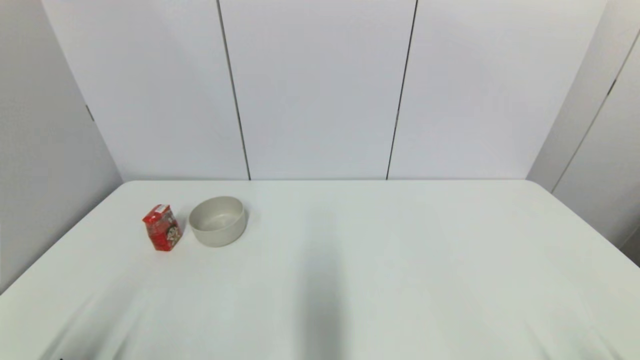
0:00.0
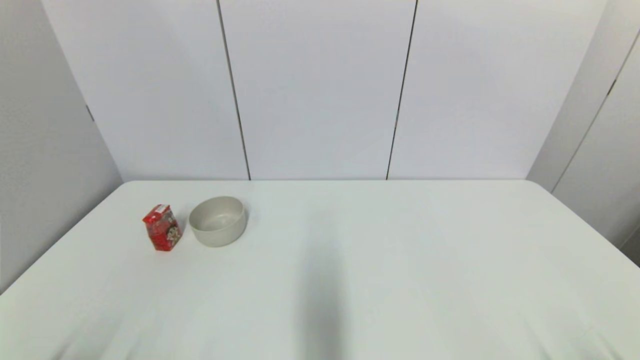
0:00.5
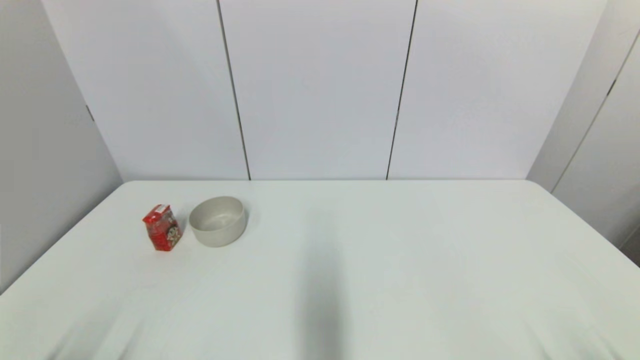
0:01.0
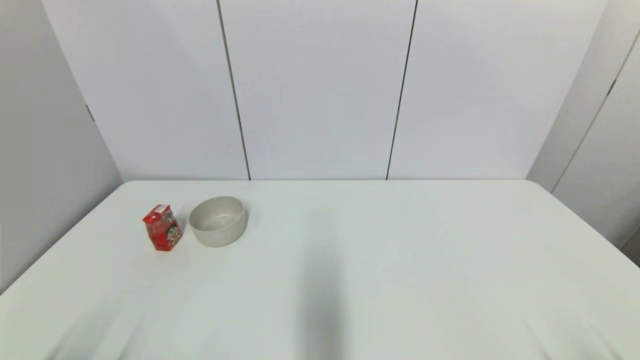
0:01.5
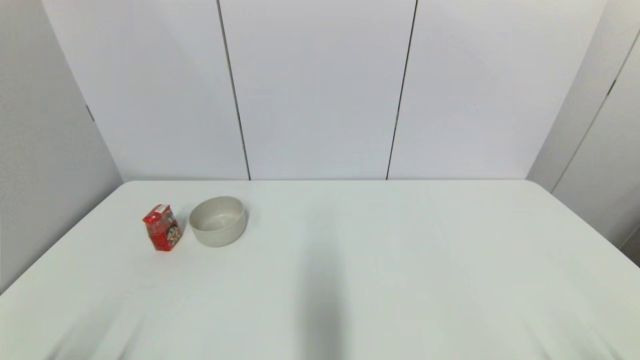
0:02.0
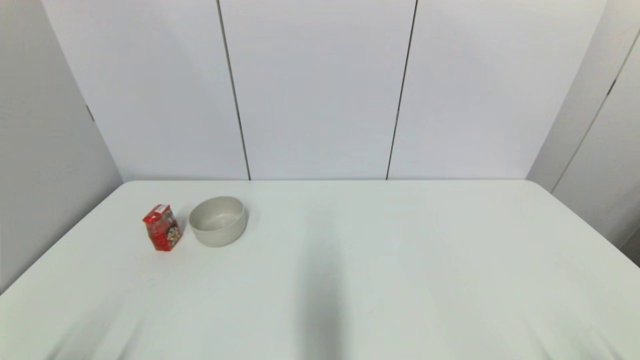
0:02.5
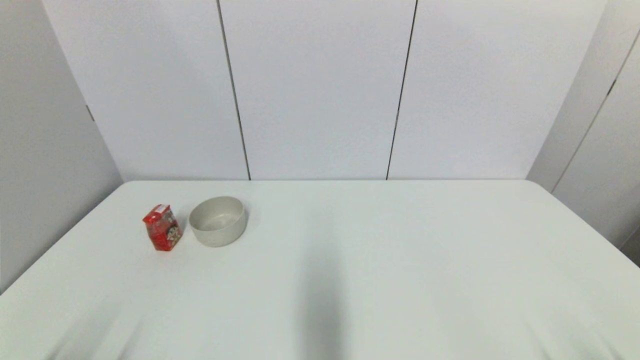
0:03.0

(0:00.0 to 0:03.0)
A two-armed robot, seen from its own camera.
0:01.5 - 0:03.0: Both grippers stay about where they are.

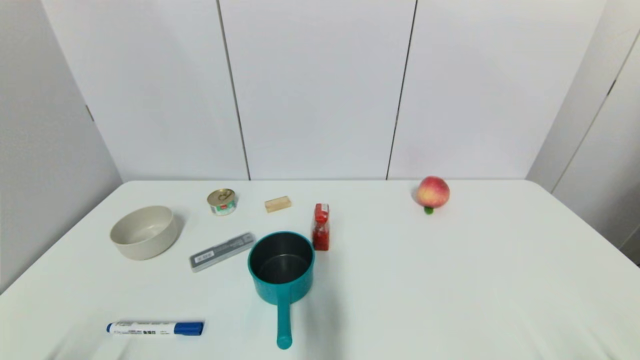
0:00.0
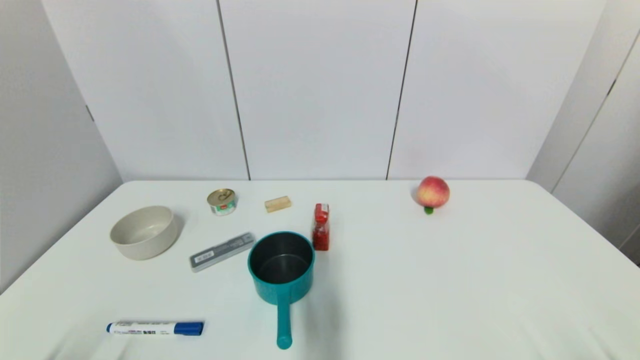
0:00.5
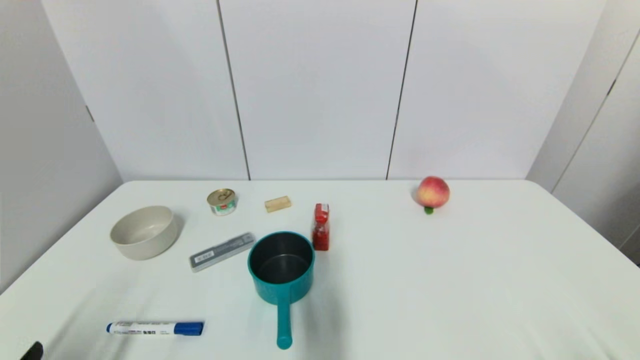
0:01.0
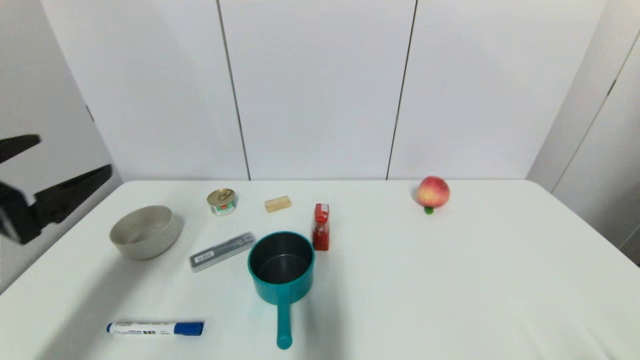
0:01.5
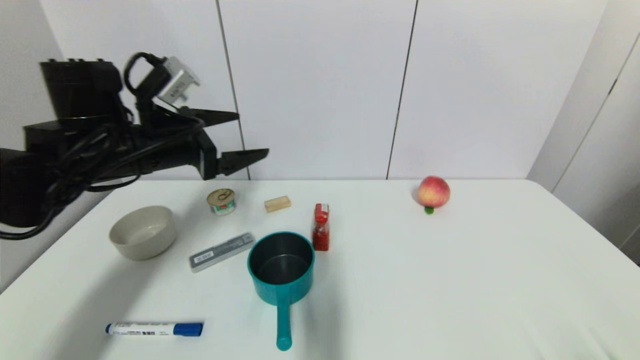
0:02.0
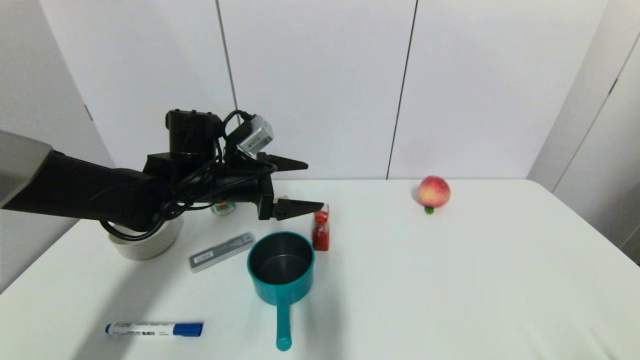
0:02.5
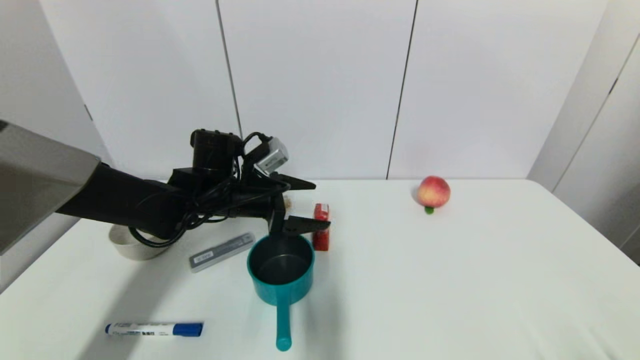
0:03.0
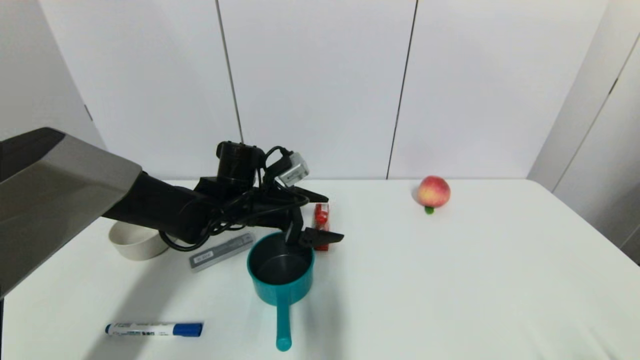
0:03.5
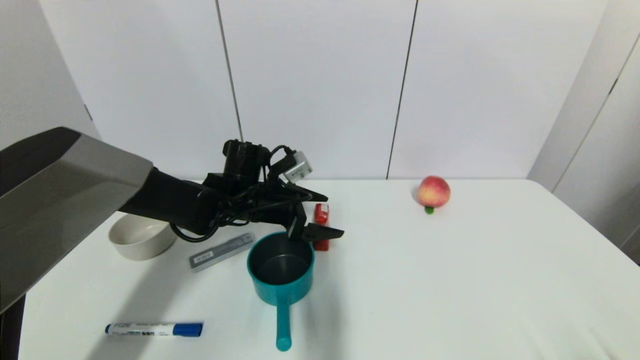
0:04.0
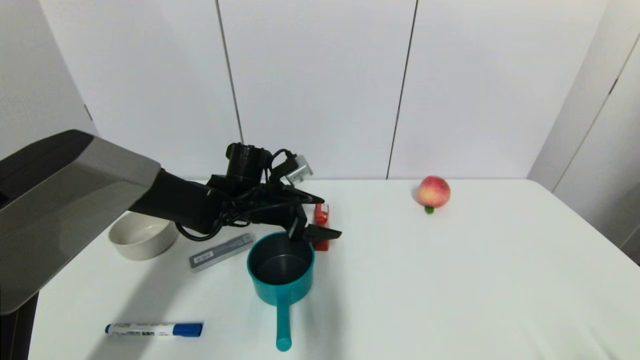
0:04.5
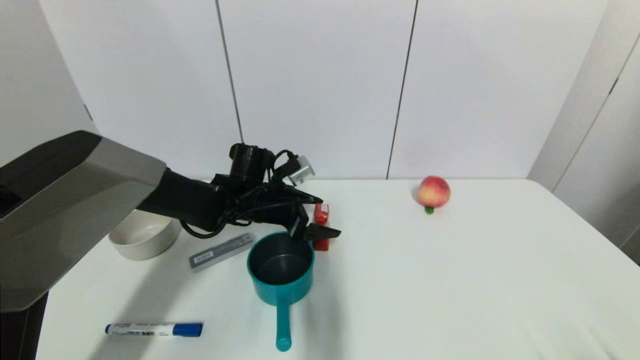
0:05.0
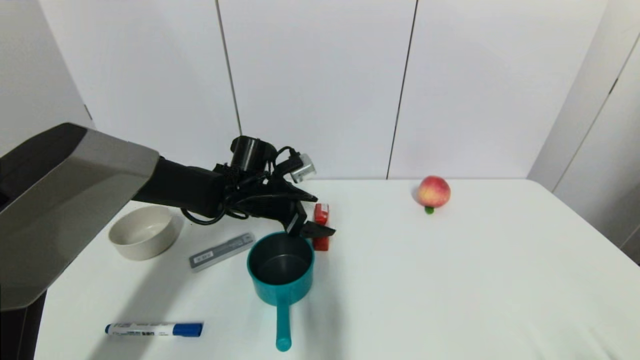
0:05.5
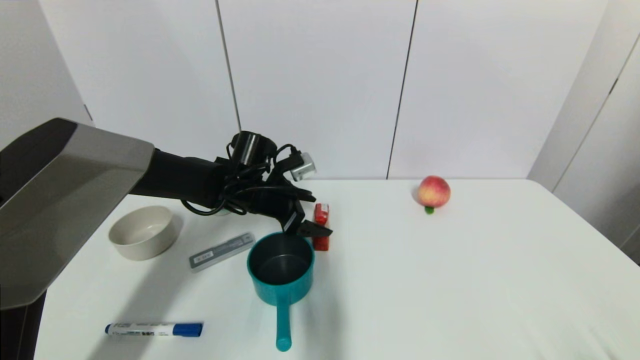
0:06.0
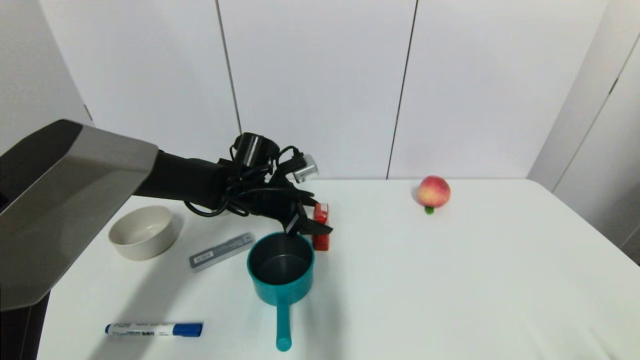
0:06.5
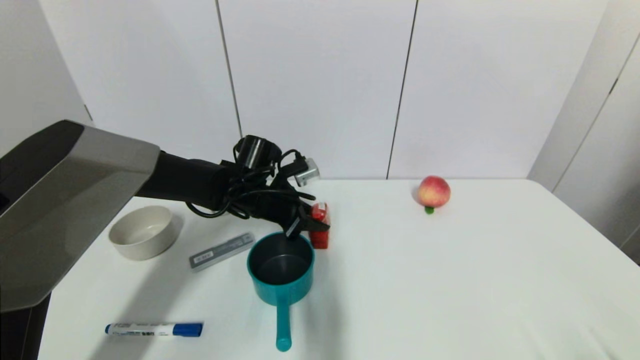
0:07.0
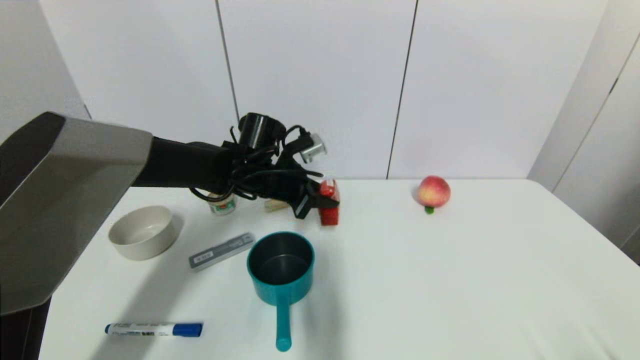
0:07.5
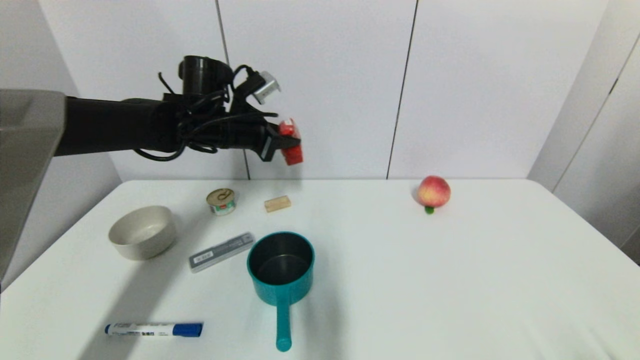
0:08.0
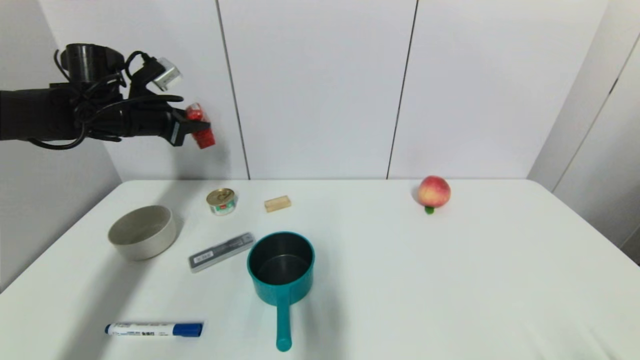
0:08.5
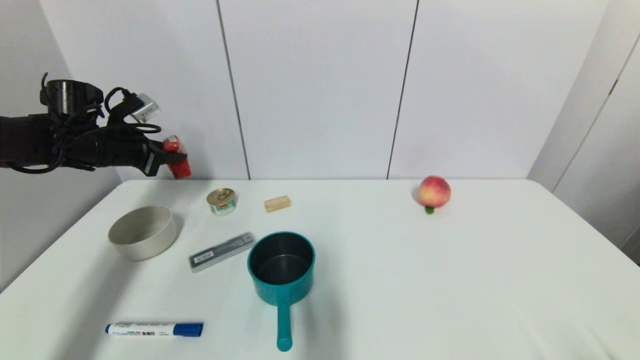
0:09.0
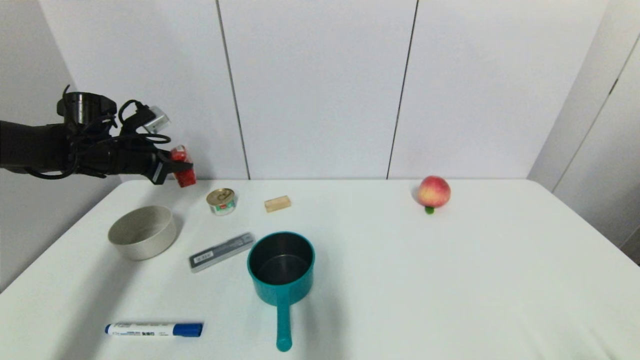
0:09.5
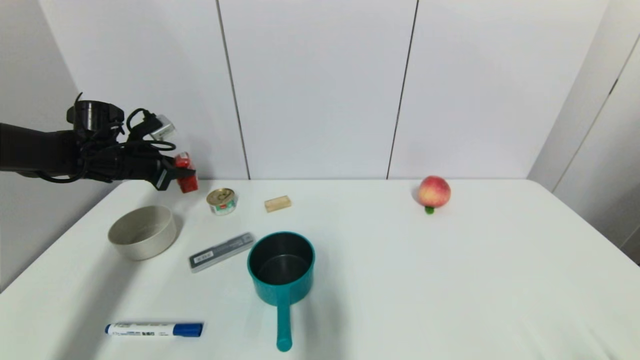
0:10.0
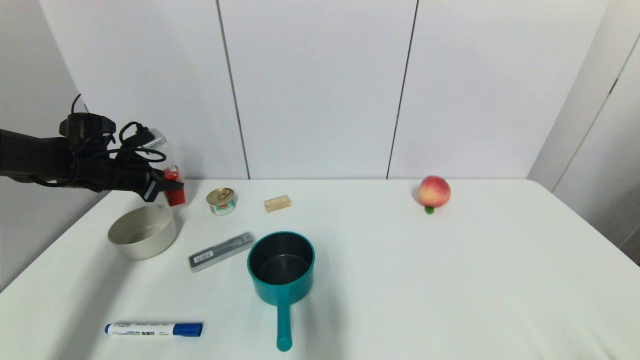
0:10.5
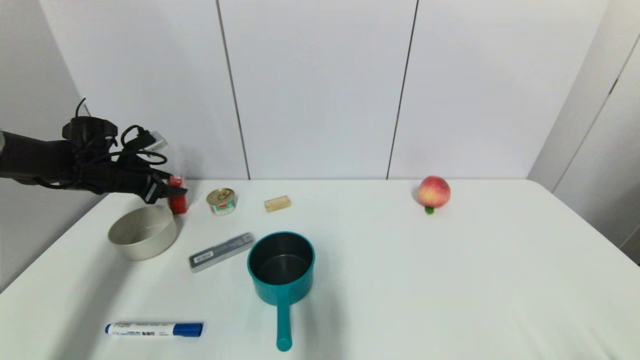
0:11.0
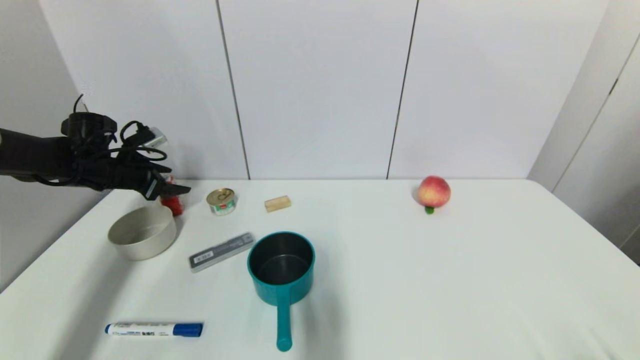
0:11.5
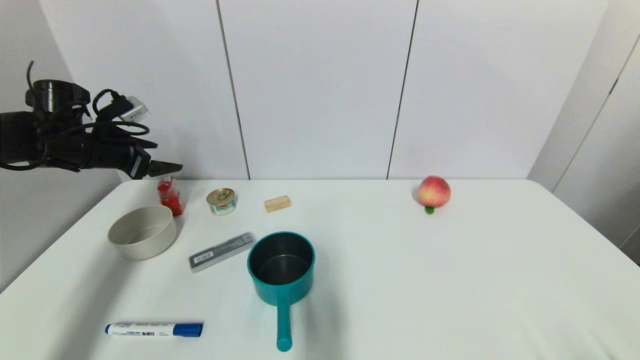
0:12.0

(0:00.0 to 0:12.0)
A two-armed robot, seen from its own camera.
Step, 0:01.0 - 0:07.0: Grasp the wangzai milk with left gripper.
Step, 0:07.5 - 0:10.5: Place the wangzai milk on the table with left gripper.
0:00.0 - 0:02.0: The left gripper travels forward and upward by some 35 cm.
0:02.0 - 0:04.0: The left gripper shifts approximately 20 cm downward, to the right and forward.
0:04.0 - 0:06.0: There are only small adjustments of the grippers.
0:06.0 - 0:08.0: The left gripper travels upward by about 10 cm, and closes.
0:08.0 - 0:10.0: The left gripper shifts about 20 cm to the left.
0:10.0 - 0:12.0: The left gripper changes place by roughly 5 cm, and opens.

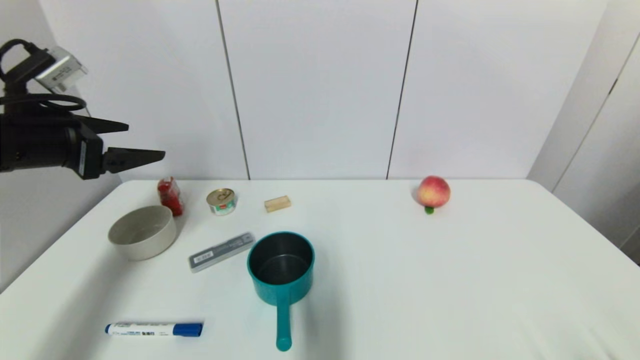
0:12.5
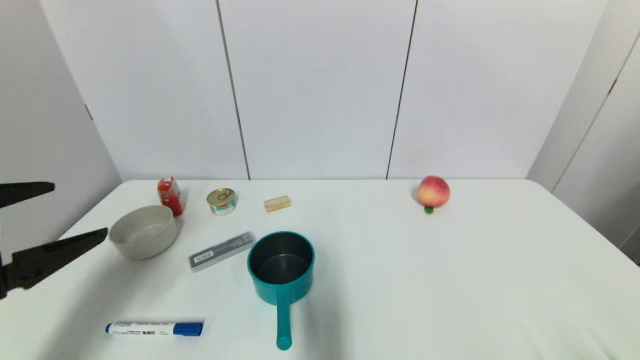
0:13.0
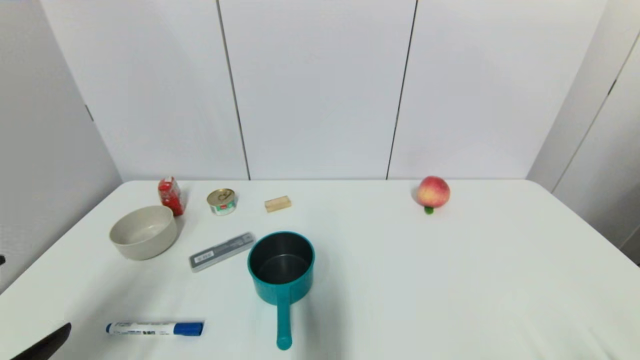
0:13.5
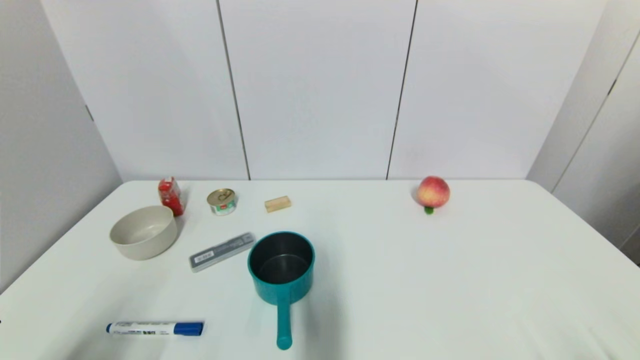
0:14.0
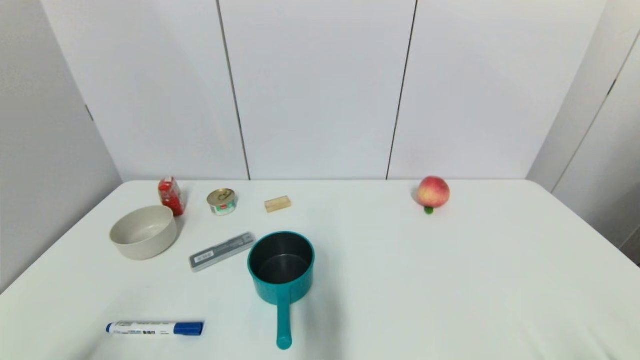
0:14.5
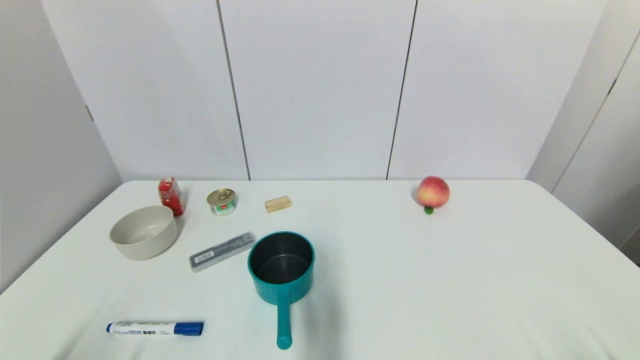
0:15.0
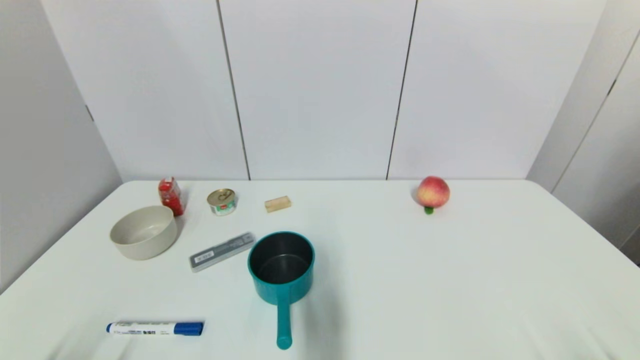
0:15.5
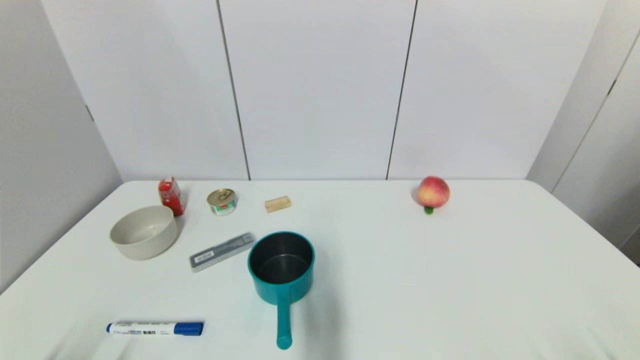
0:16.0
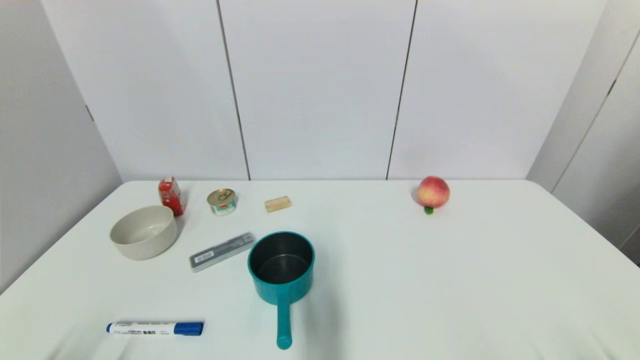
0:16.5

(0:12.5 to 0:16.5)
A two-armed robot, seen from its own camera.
0:12.5 - 0:14.5: The left gripper moves backward and downward, approximately 30 cm.
